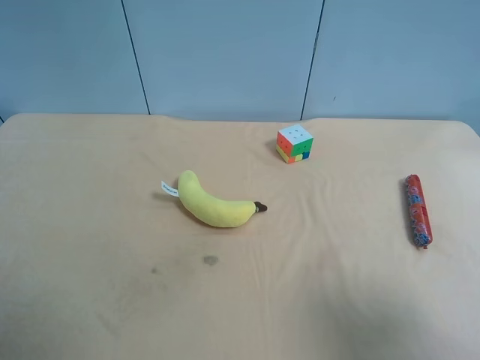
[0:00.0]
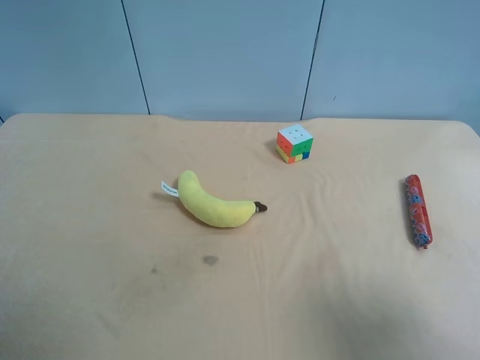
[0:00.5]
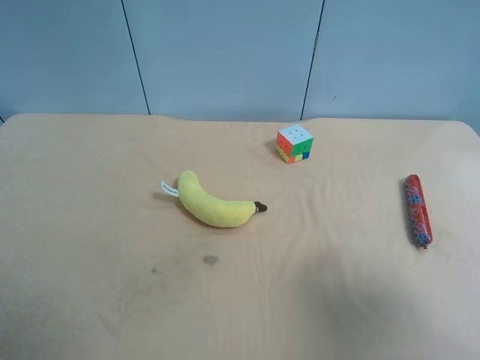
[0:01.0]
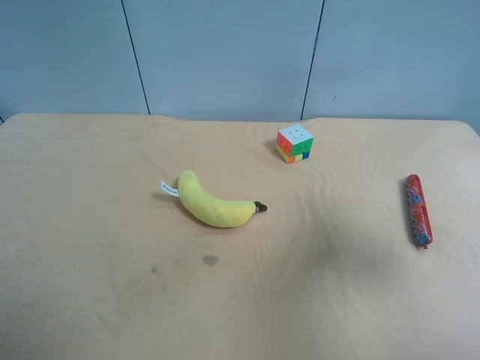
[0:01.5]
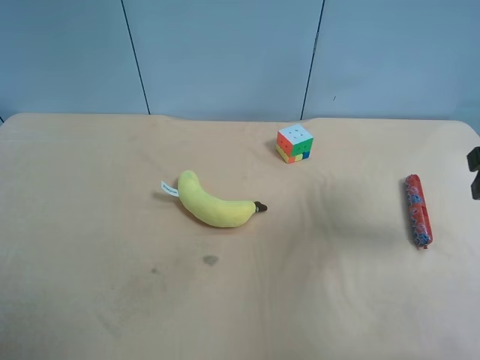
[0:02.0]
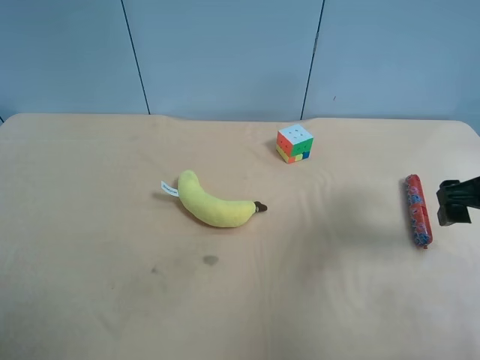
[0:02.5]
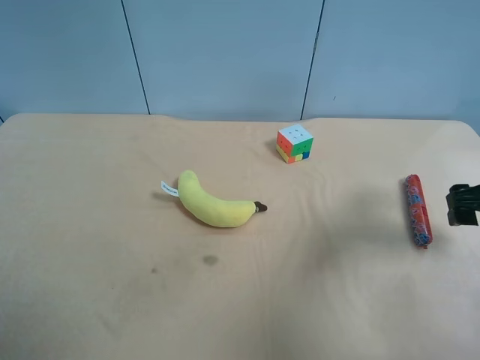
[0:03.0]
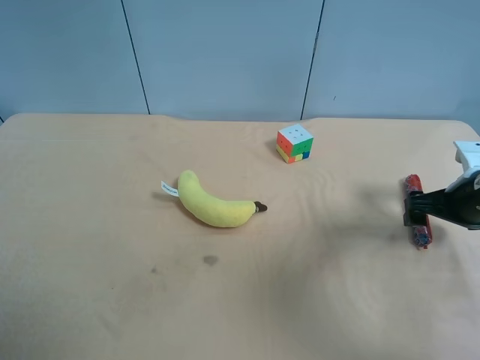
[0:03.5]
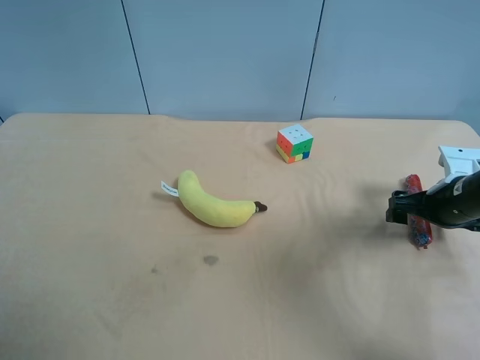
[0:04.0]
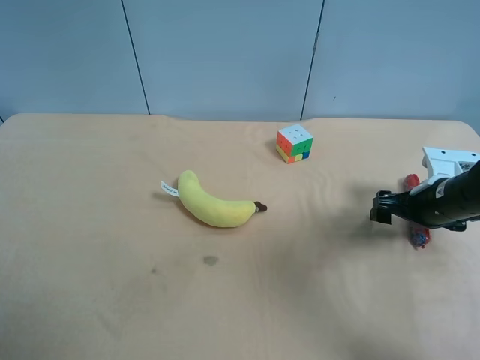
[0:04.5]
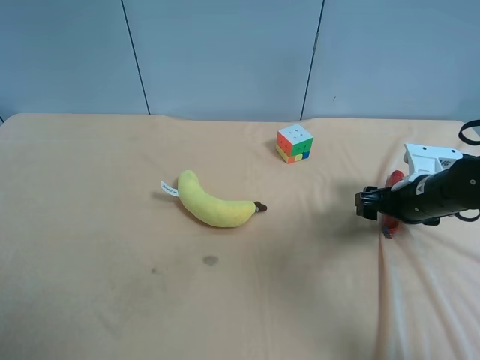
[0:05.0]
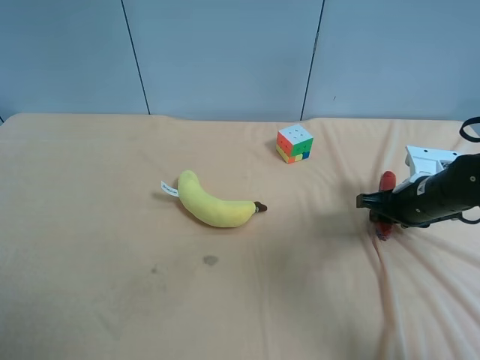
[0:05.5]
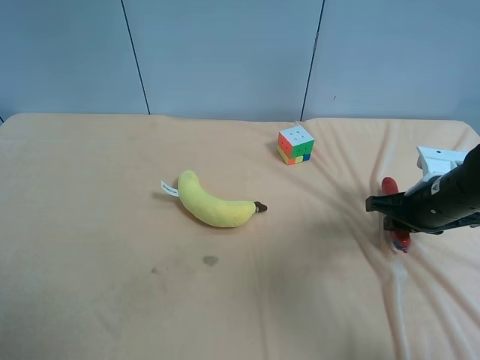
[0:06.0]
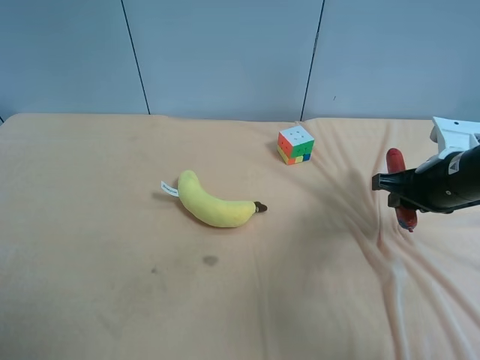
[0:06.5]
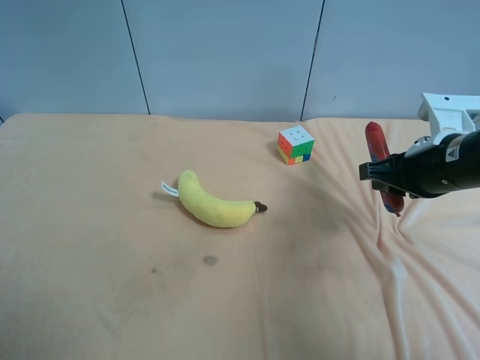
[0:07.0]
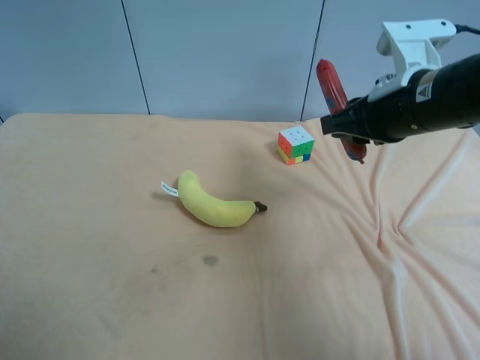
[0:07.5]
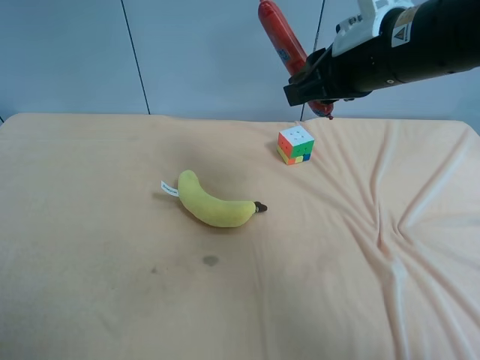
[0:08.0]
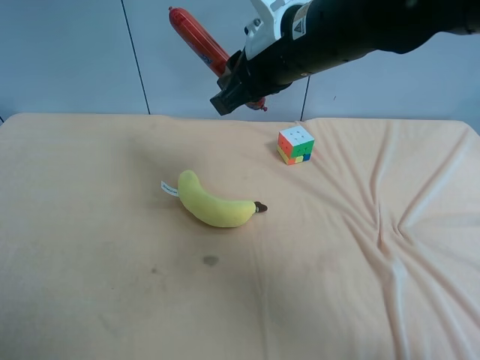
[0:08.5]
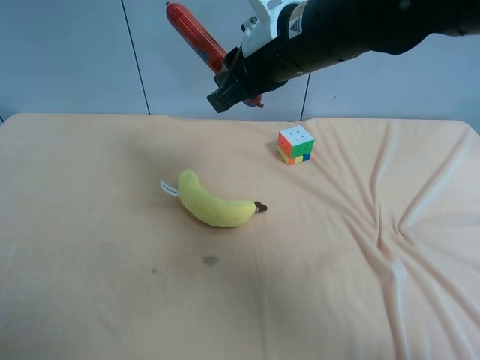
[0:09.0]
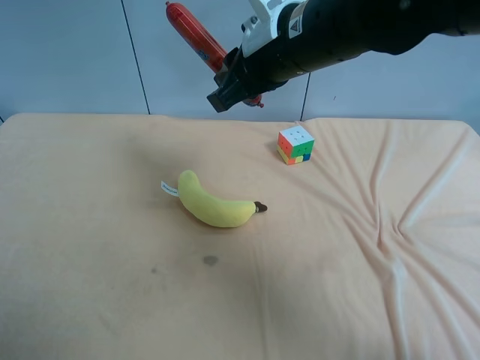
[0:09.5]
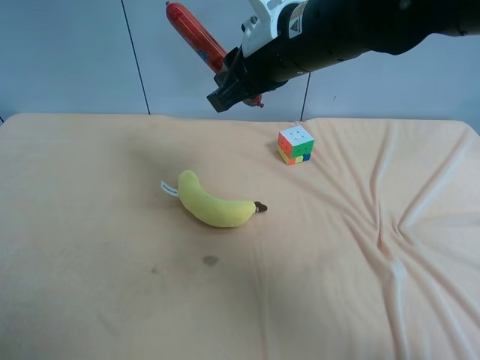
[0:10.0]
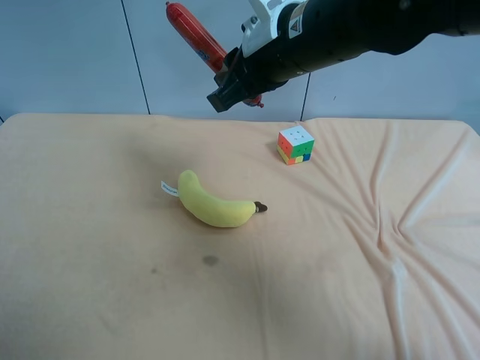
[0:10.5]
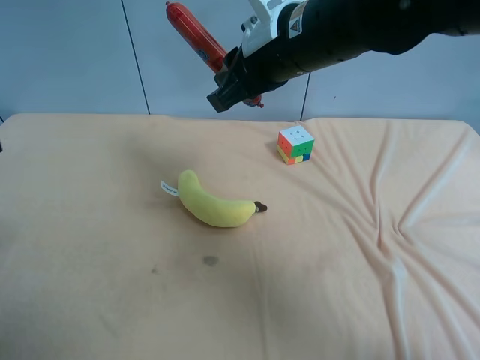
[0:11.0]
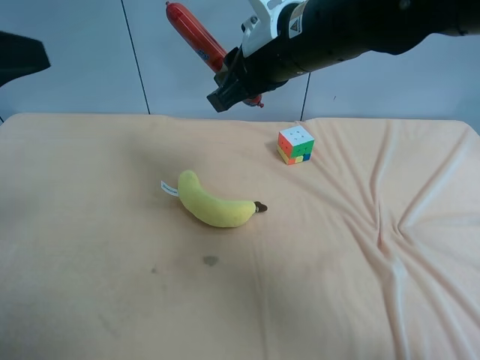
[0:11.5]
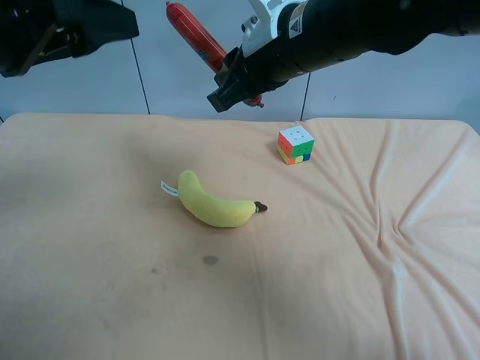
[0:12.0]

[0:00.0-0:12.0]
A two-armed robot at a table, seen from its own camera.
Task of the whole recording: use the right gripper to pick up the item and transfer it from the right gripper to the left gripper.
0:00.0 to 0:02.0: The right gripper heads forward, covering approximately 20 cm.
0:02.0 to 0:04.0: The right gripper shifts approximately 20 cm downward and forward.
0:04.0 to 0:06.0: The right gripper moves about 5 cm, and closes.
0:06.0 to 0:08.0: The right gripper shifts about 25 cm upward and to the left.
0:08.0 to 0:10.0: The right gripper goes roughly 5 cm to the left.
0:10.0 to 0:12.0: The left gripper shifts some 25 cm forward and to the right.

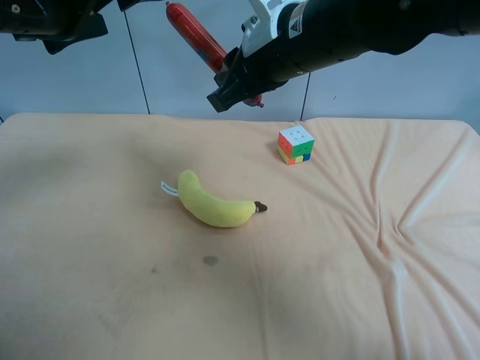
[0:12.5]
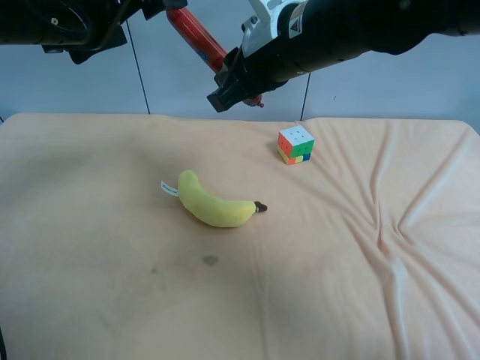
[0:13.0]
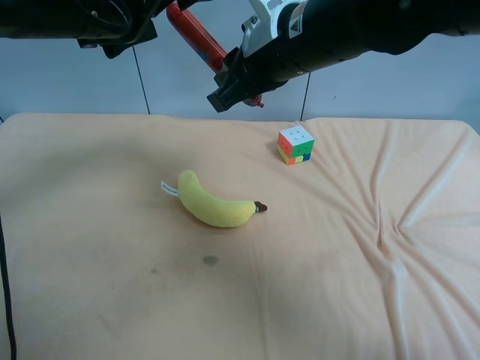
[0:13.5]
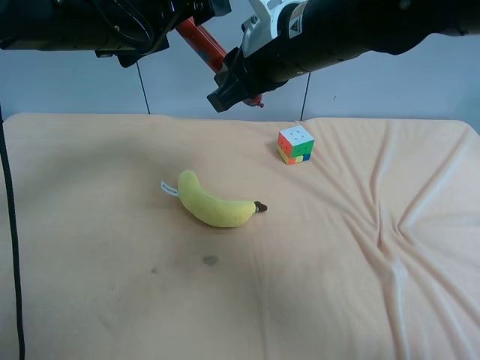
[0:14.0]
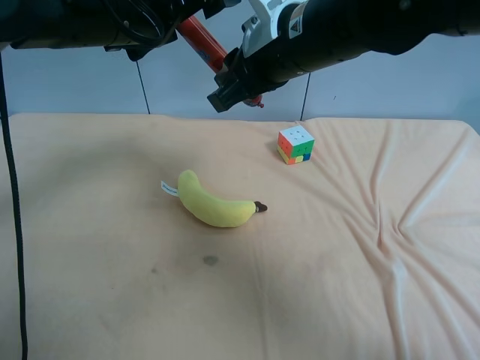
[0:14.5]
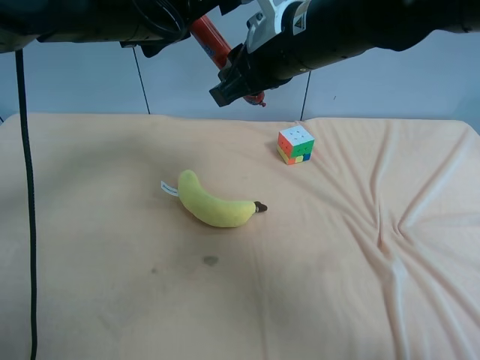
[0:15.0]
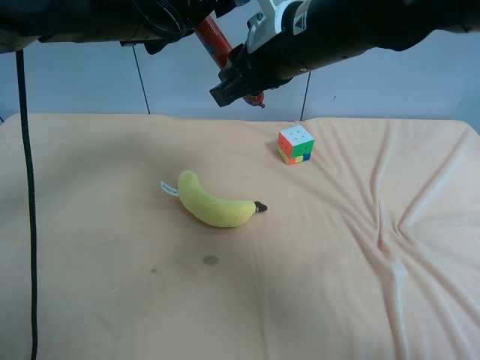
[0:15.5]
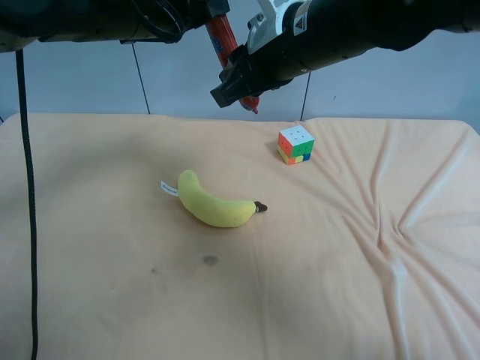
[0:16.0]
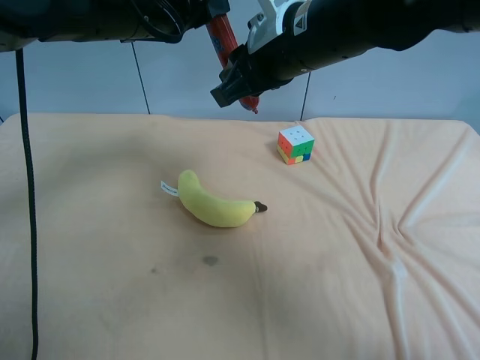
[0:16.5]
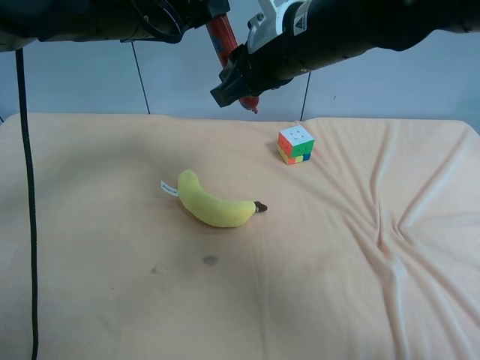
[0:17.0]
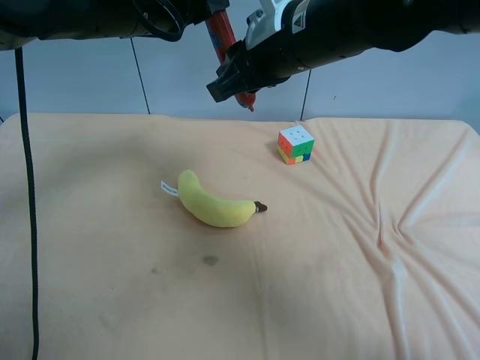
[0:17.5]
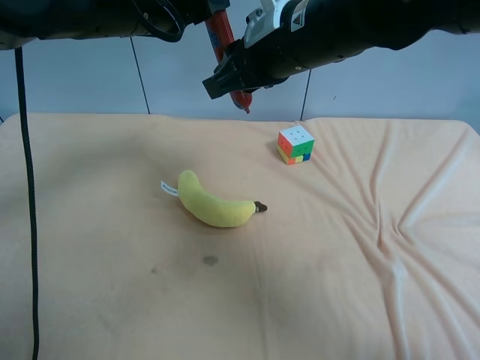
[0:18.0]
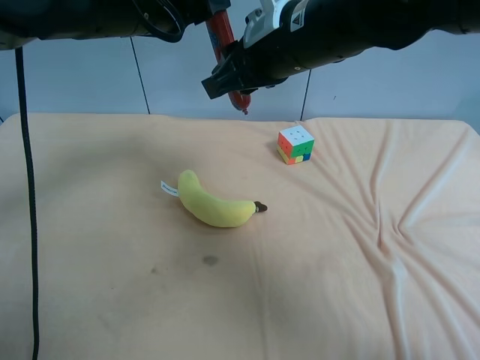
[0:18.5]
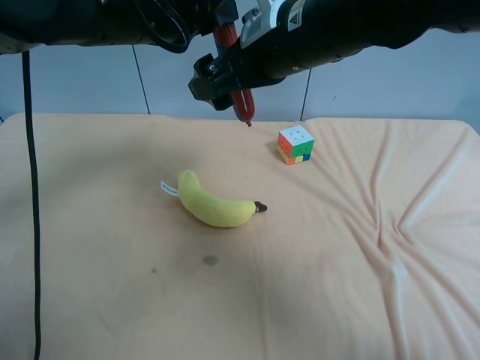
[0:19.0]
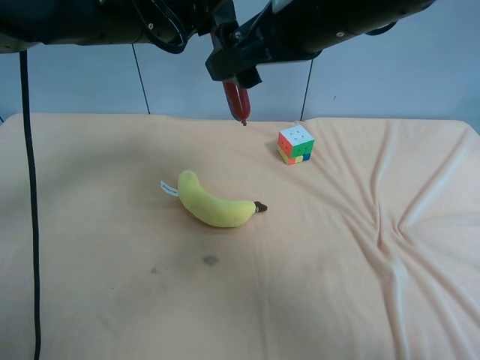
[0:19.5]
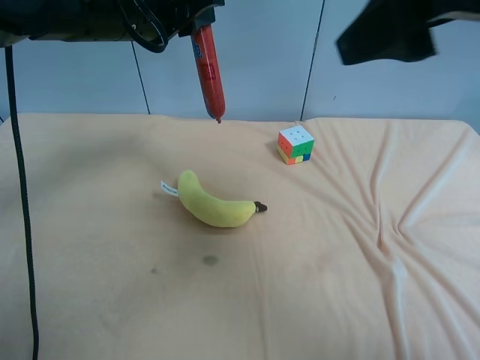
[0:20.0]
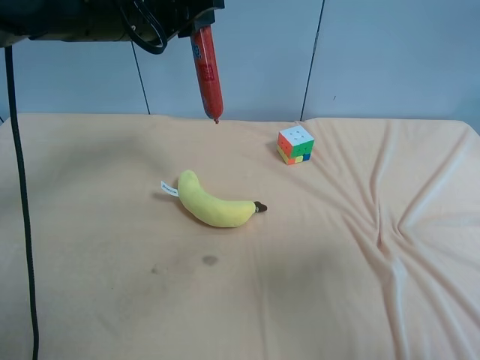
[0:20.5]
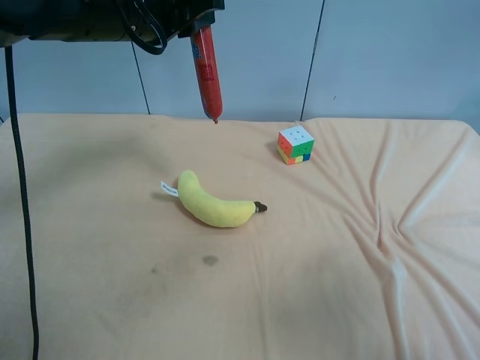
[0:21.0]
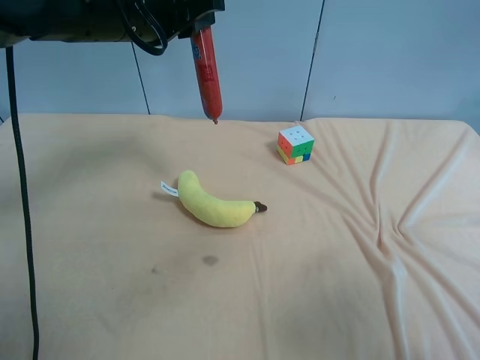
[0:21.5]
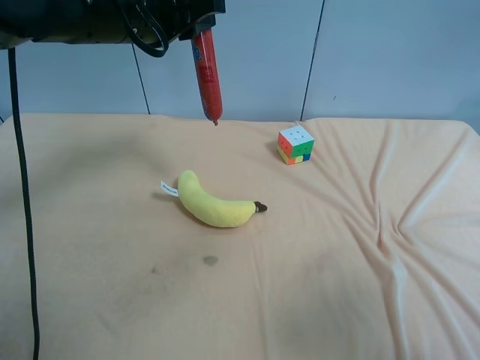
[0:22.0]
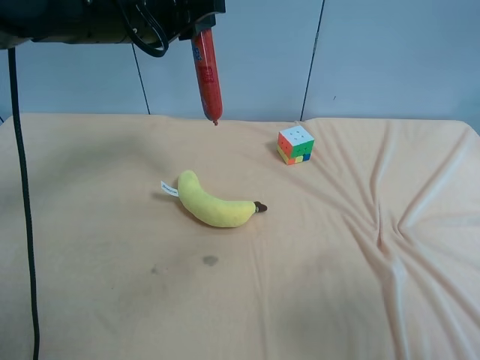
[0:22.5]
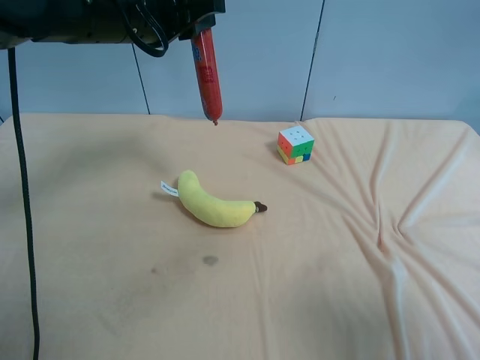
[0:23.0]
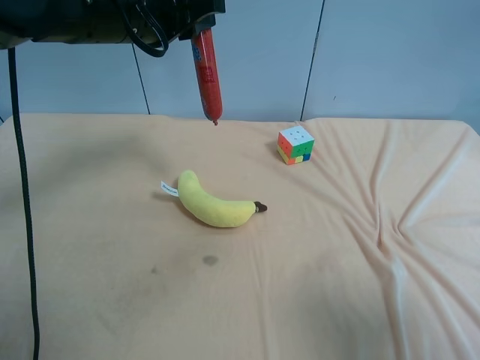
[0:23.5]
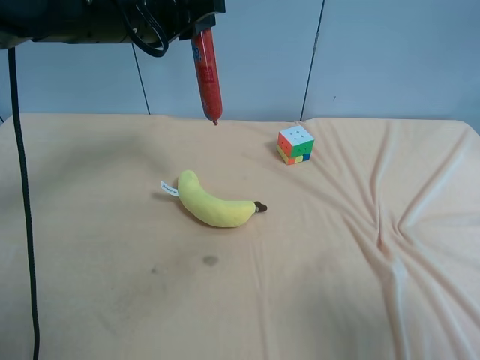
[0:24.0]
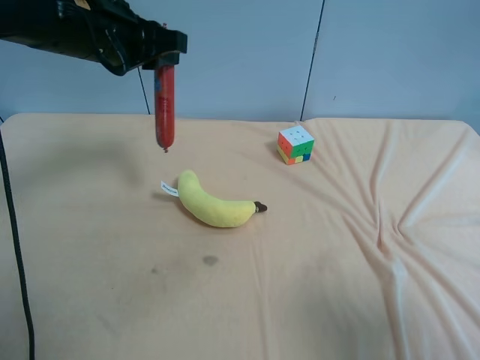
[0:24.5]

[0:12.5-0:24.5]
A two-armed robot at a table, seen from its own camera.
Task of the whole recording: use the right gripper to pick up the item and transfer it from the right gripper to the left gripper.
0:12.5 to 0:14.5: The left gripper moves to the right, approximately 5 cm.
0:14.5 to 0:16.5: The left gripper closes its fingers.
0:16.5 to 0:18.5: There are only small adjustments of the grippers.
0:18.5 to 0:20.5: The right gripper travels backward and to the right by roughly 35 cm, and opens.
0:20.5 to 0:22.5: The right gripper moves some 5 cm.
0:22.5 to 0:24.5: The left gripper goes about 5 cm to the left.

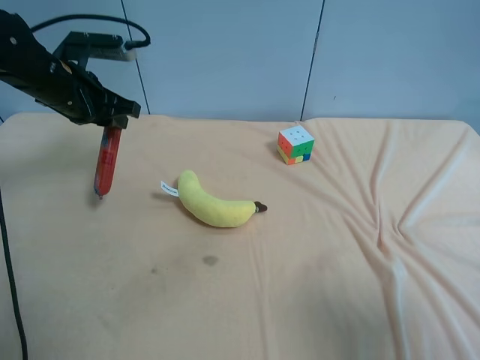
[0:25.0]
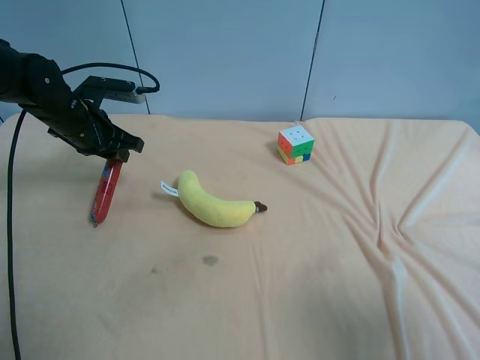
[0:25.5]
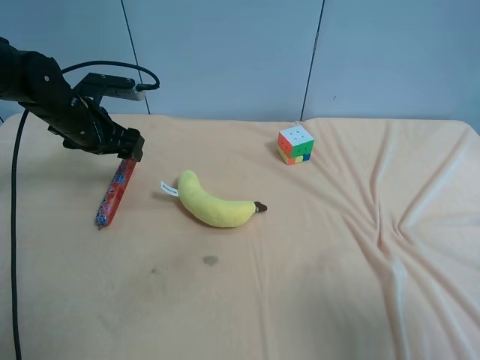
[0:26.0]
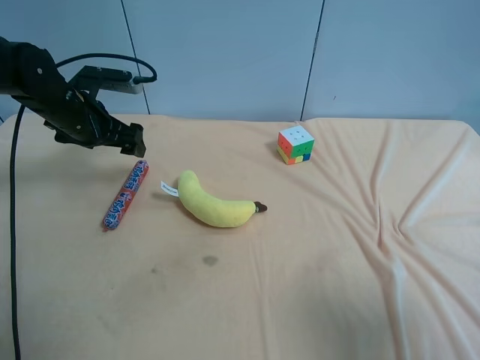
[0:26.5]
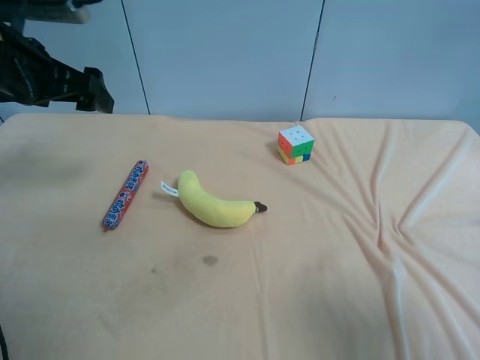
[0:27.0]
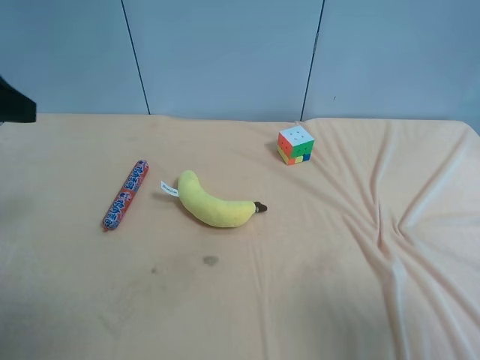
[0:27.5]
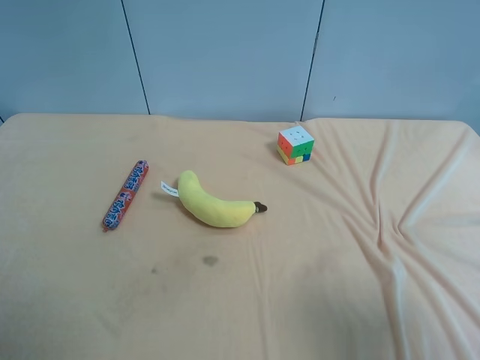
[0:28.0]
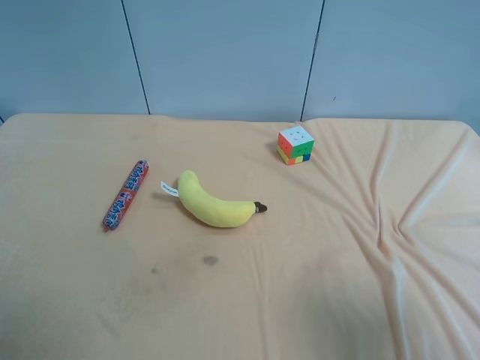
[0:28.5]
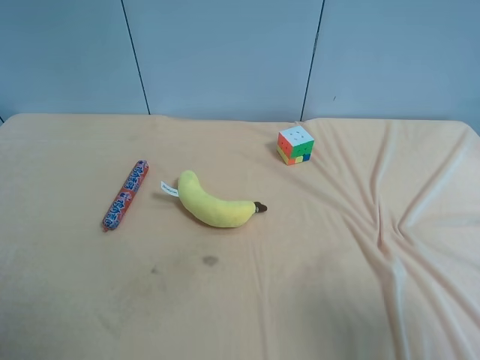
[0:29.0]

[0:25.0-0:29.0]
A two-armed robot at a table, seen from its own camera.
Task of the whole recording: use the right gripper to pick up the item and transfer it from the right gripper to the left gripper.
0:25.0 to 0:27.0: The left gripper is displaced upward and backward by roughly 10 cm, and opens.
0:27.0 to 0:29.0: The left gripper goes some 30 cm backward.
